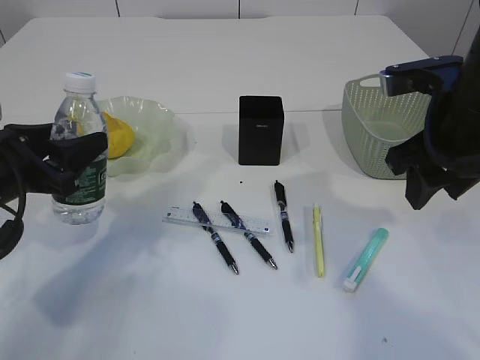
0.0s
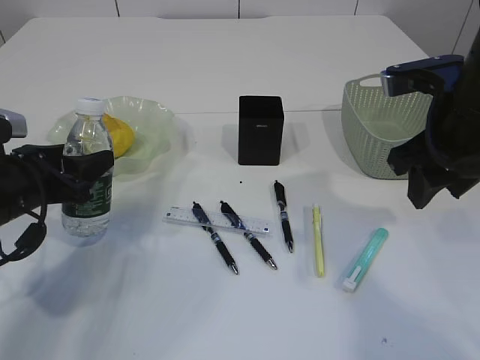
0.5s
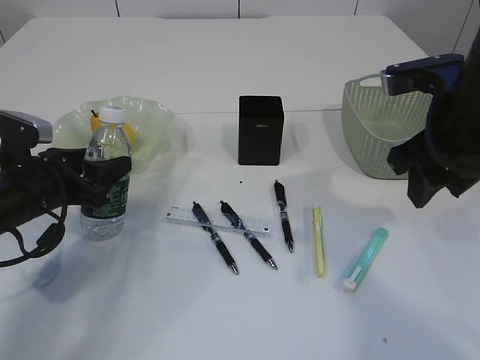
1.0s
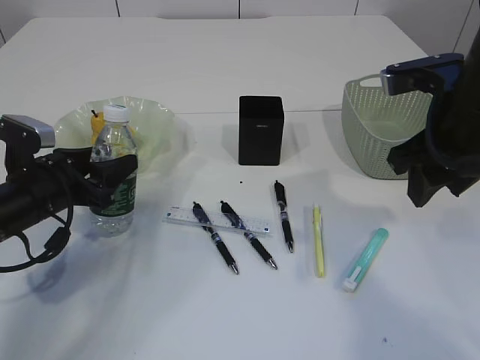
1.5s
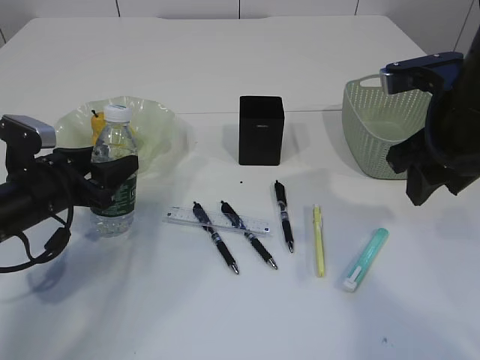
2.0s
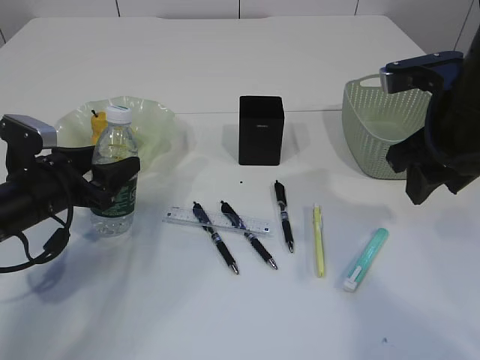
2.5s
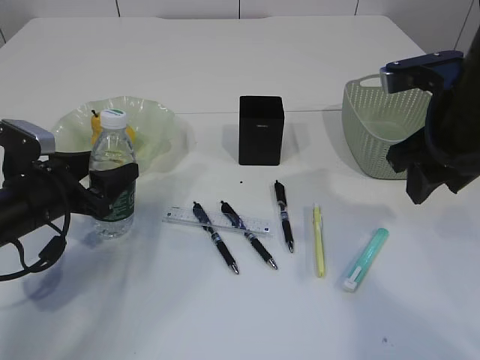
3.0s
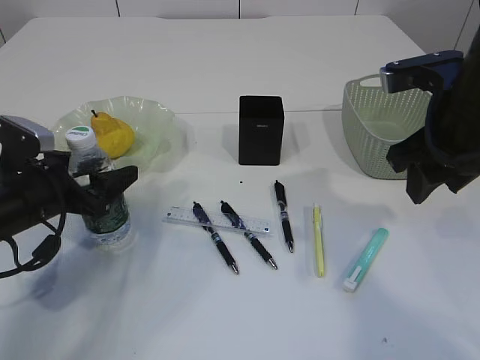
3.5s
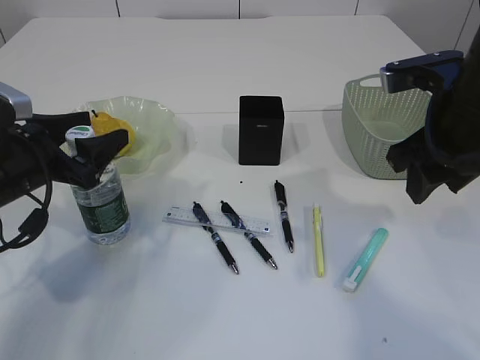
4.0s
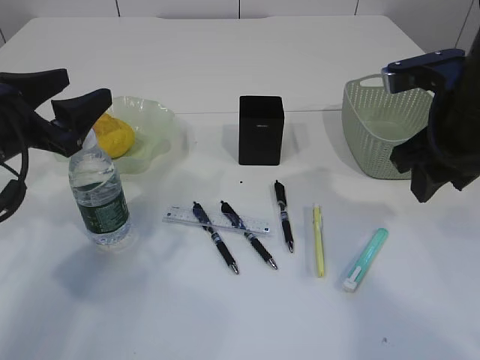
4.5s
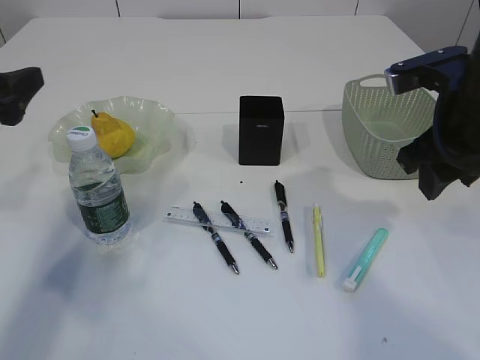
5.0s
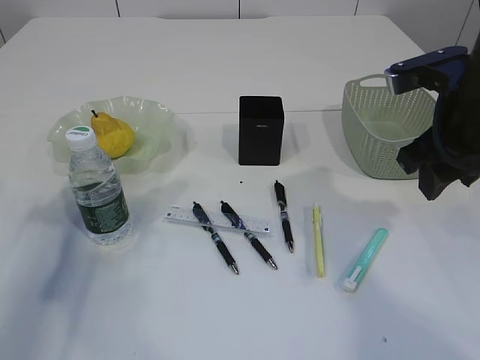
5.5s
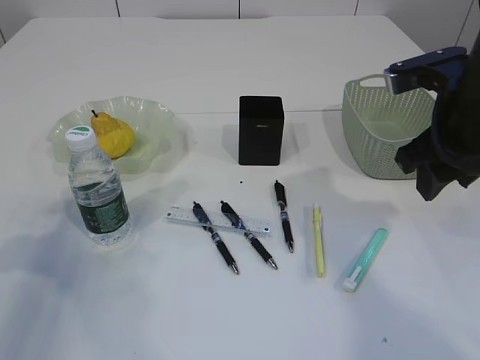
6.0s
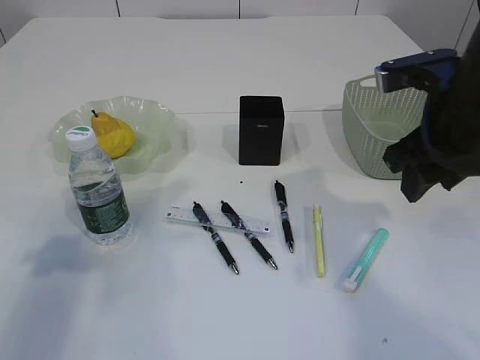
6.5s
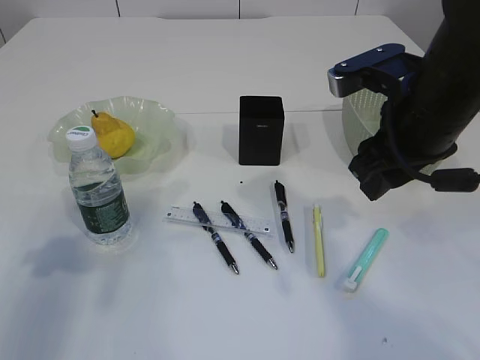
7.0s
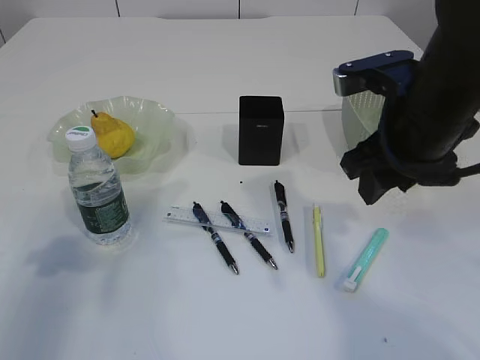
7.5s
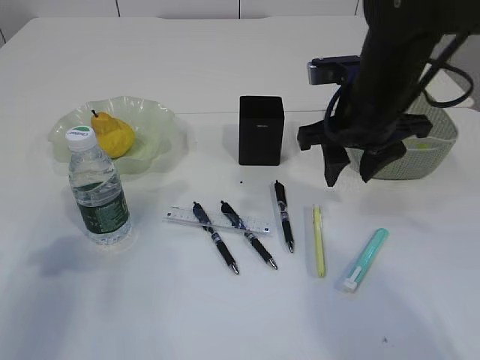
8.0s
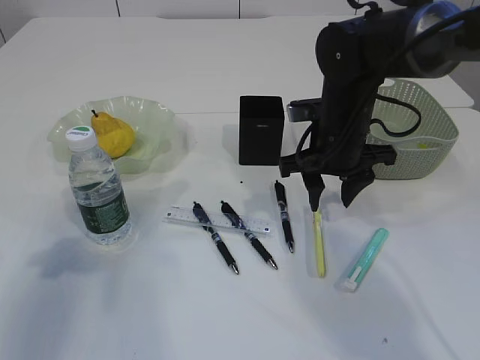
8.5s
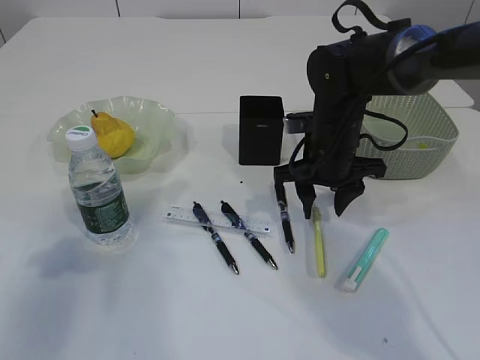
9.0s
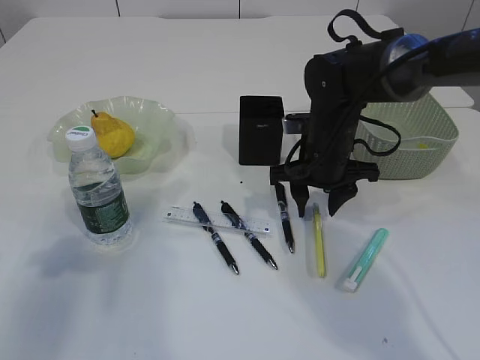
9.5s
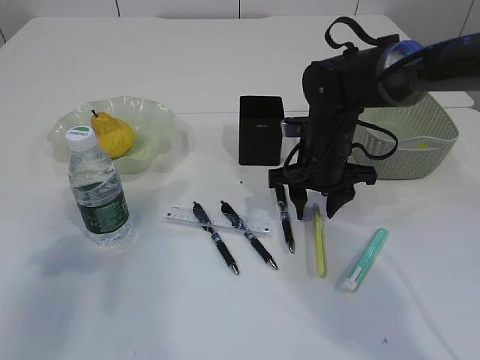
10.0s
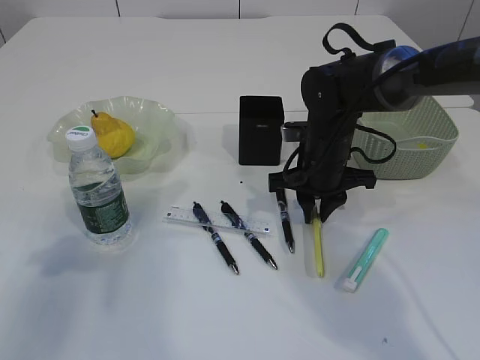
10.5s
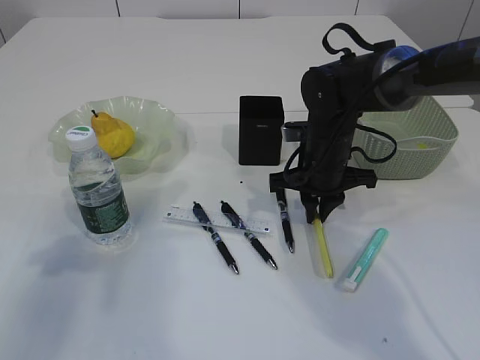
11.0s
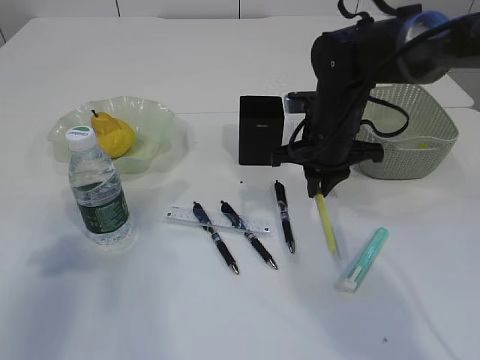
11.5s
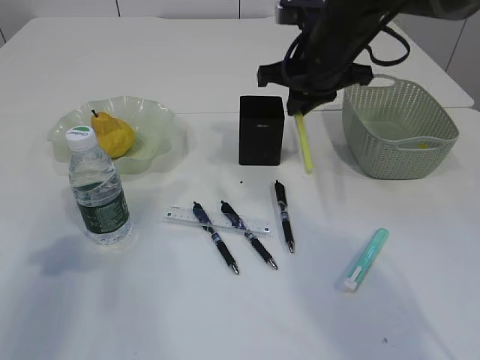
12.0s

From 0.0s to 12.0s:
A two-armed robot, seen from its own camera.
Step, from 0.0s to 4.0s: Place the bottle.
Step, from 4.5s to 11.5s: pick up the yellow knife.
From 0.0s to 2.0s: The left gripper heads downward, covering some 5 cm.
From 2.0s to 4.0s: The left gripper heads upward, covering some 5 cm, and opens.
From 4.0s to 6.0s: The left gripper shifts some 15 cm to the left, backward and upward.
From 6.0s to 8.0s: The right gripper shifts approximately 5 cm to the left.
From 8.0s to 10.0s: The right gripper goes some 10 cm downward and forward.
From 10.0s to 12.0s: The right gripper heads upward, covering approximately 10 cm, and closes up.

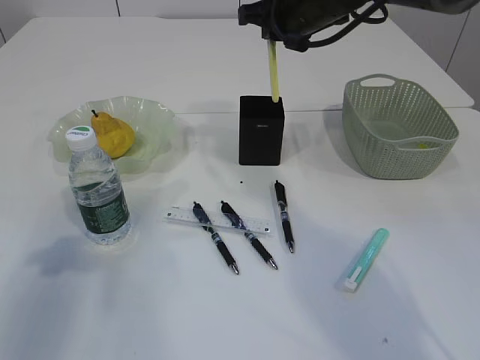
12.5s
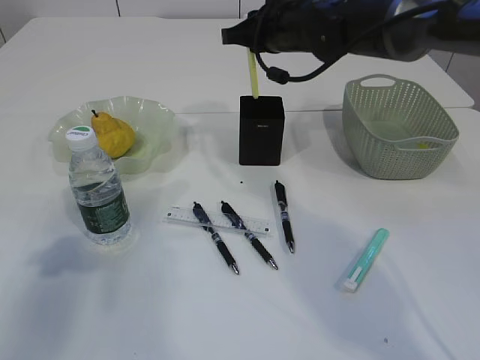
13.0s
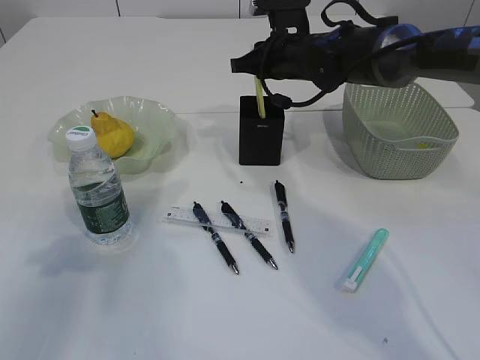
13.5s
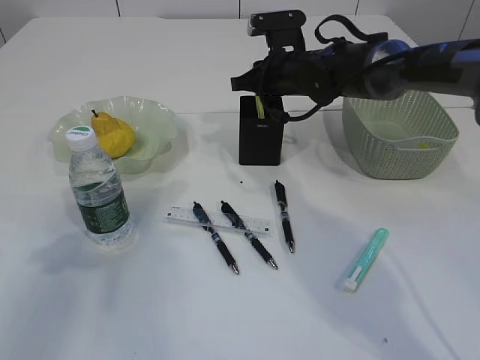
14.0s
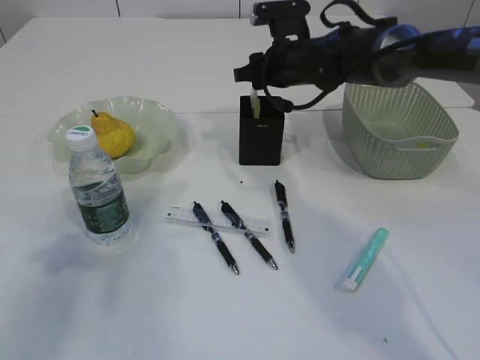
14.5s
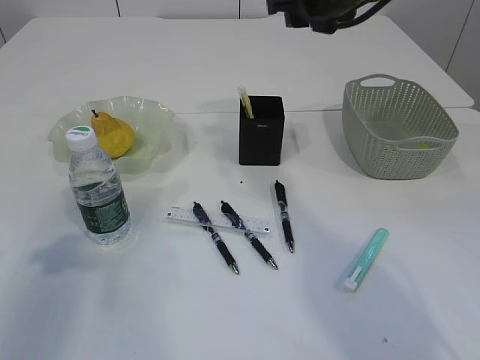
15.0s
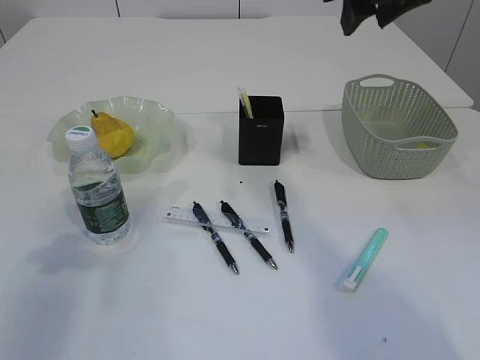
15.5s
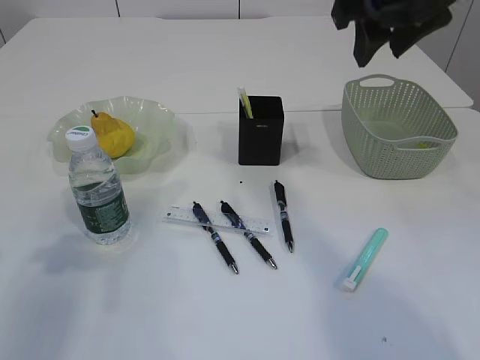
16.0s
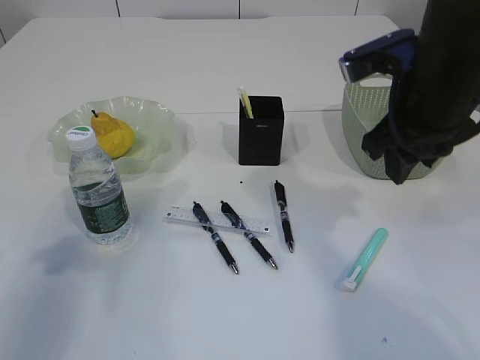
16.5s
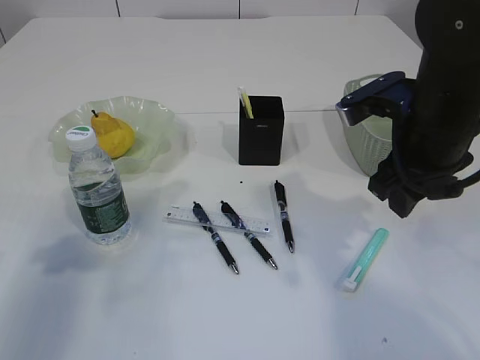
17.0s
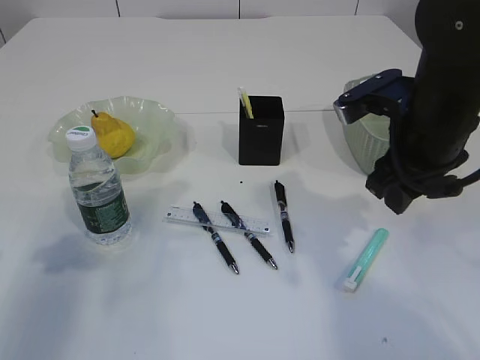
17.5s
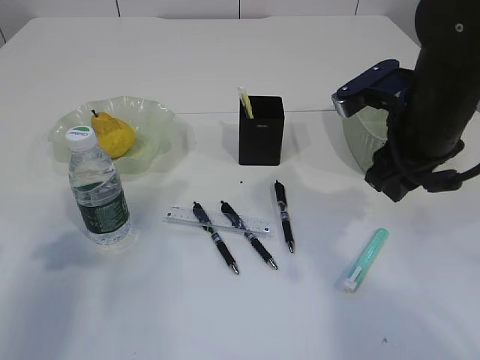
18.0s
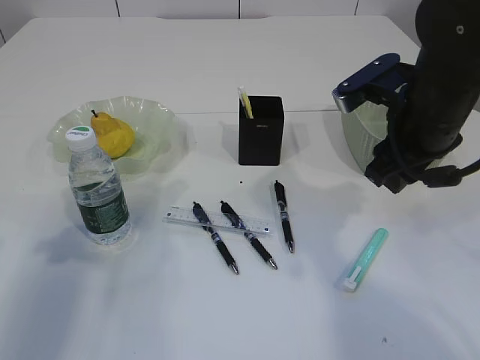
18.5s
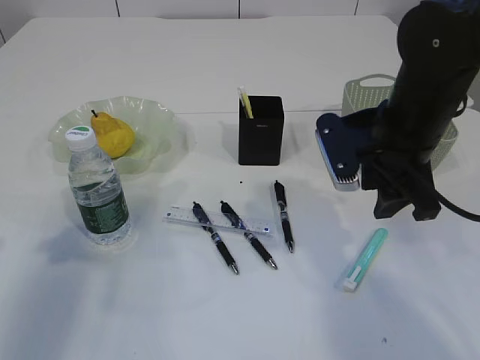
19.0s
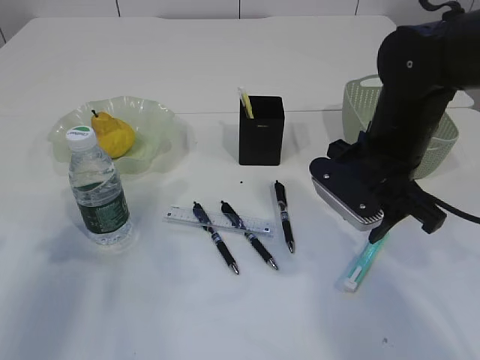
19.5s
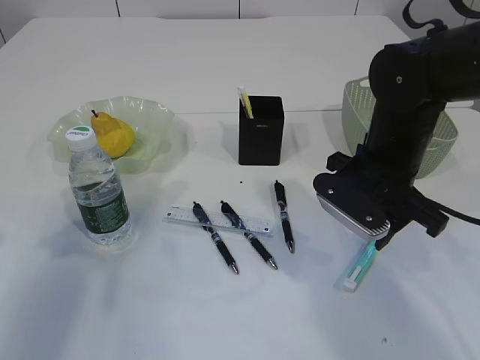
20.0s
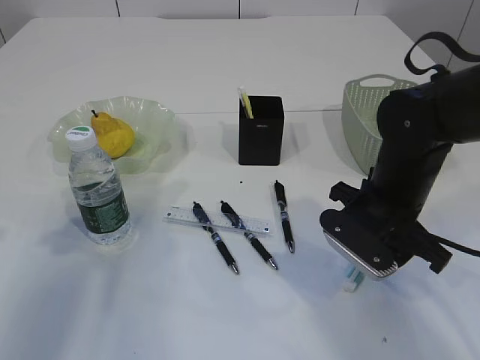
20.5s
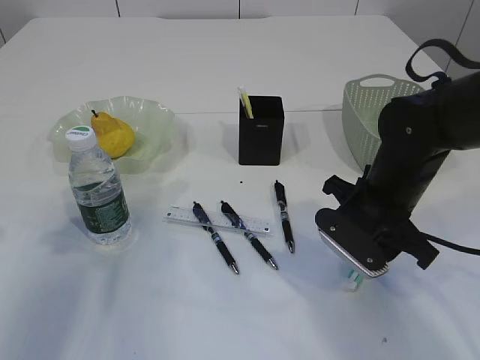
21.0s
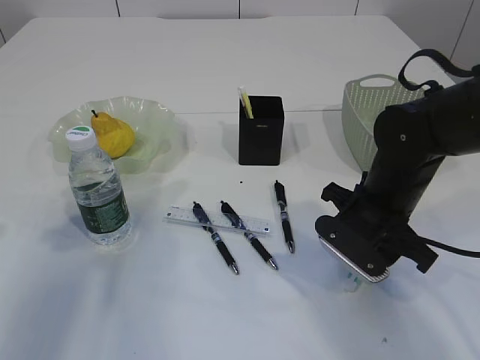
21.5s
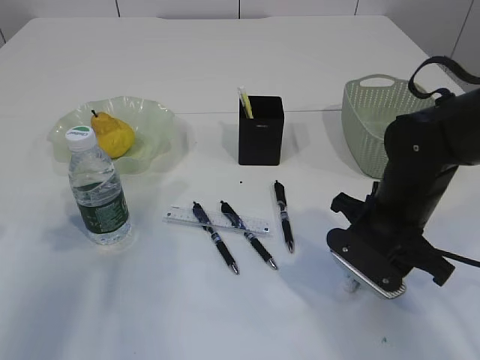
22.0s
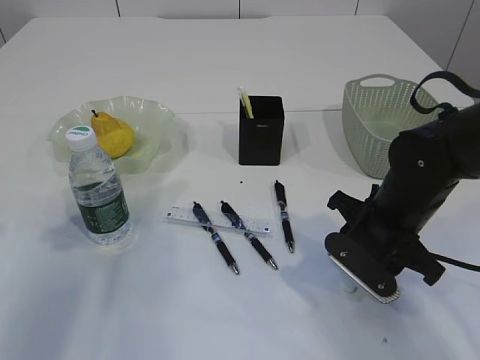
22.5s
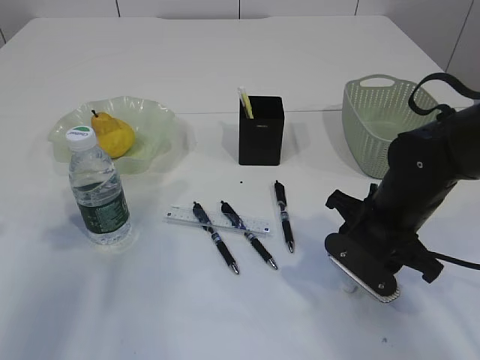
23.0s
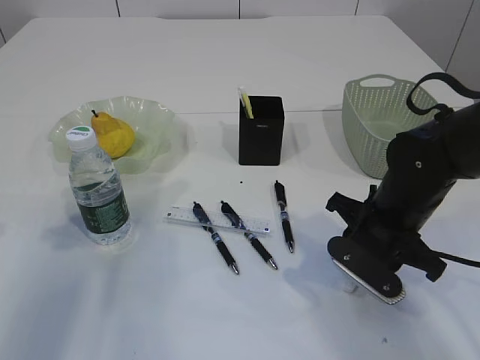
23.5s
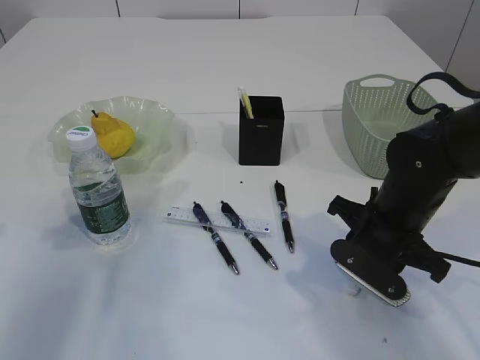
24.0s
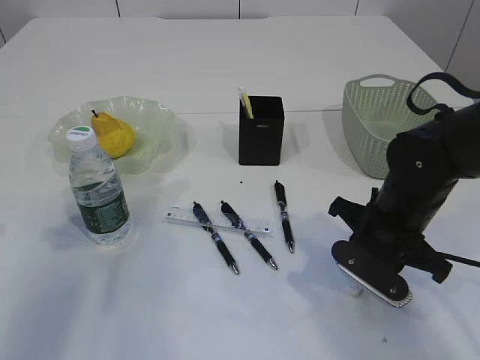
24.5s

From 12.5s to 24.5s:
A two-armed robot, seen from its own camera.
Step, from 12.5s to 14.5s: place the yellow knife into the pen holder.
From 12.5s to 14.5s: The right gripper moves downward, about 10 cm, and opens up.
From 14.5s to 16.5s: The right gripper travels backward, upward and to the right by some 20 cm.
From 16.5s to 18.5s: The grippers make only small movements.
From 18.5s to 20.5s: The right gripper travels downward by some 10 cm.
From 20.5s to 24.5s: The grippers move only a little.

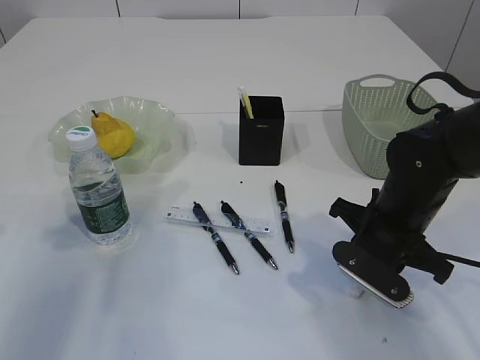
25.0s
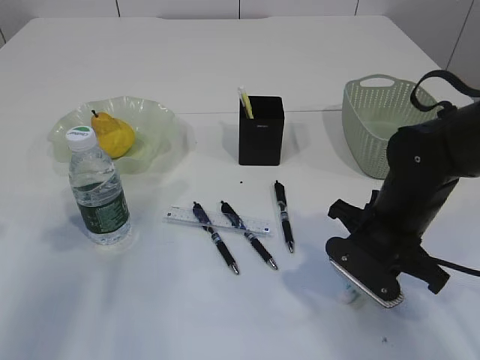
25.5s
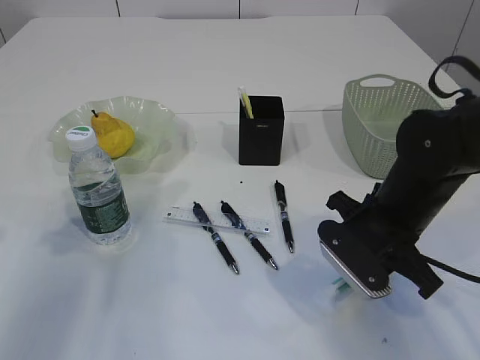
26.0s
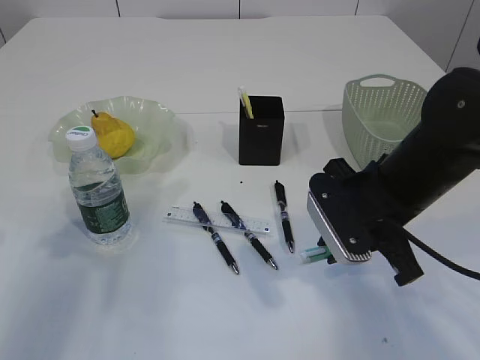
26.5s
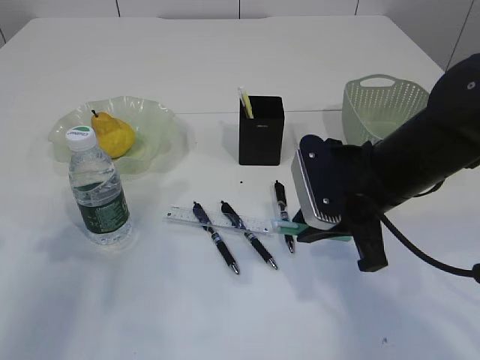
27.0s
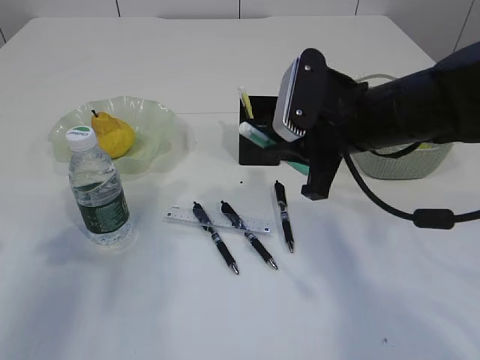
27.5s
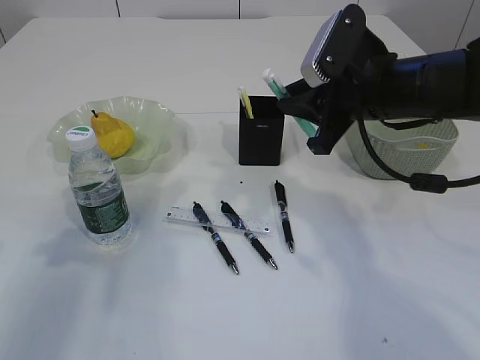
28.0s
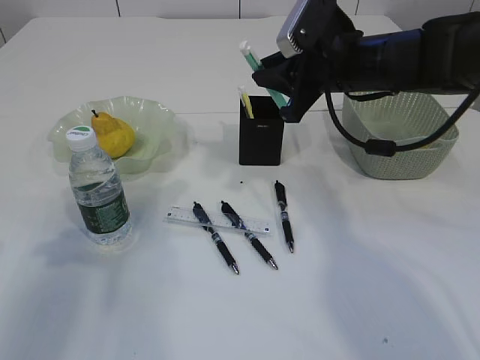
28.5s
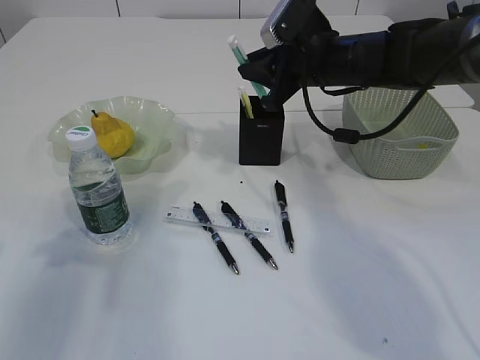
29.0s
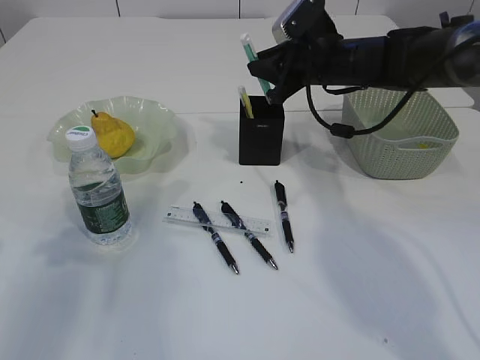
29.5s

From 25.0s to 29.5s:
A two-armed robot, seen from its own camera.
From 25.0s to 27.0s: The right gripper heads upward, covering some 5 cm.
From 27.0s to 29.5s: The right gripper moves forward, about 20 cm.
